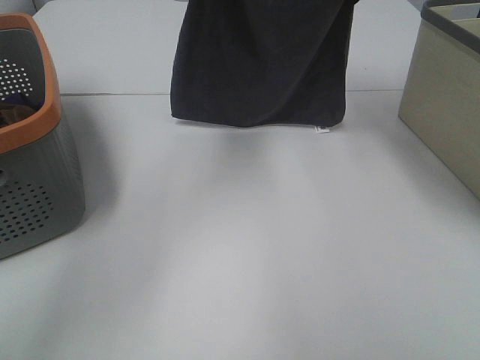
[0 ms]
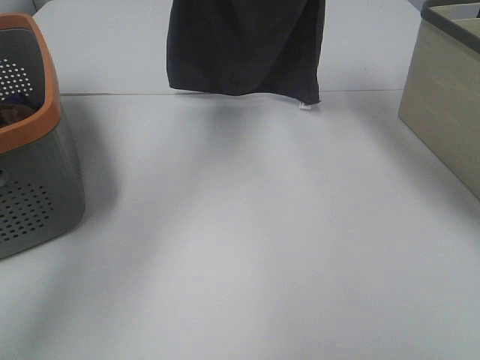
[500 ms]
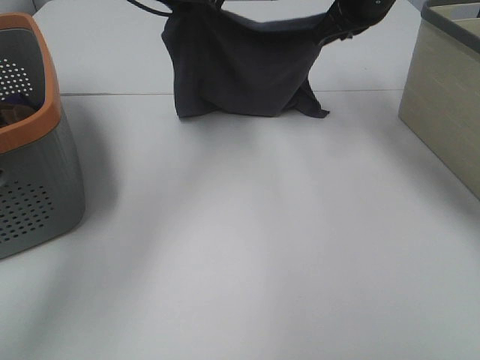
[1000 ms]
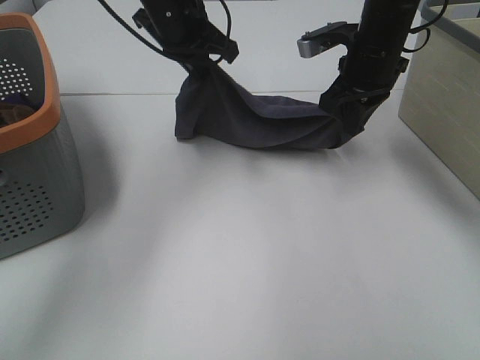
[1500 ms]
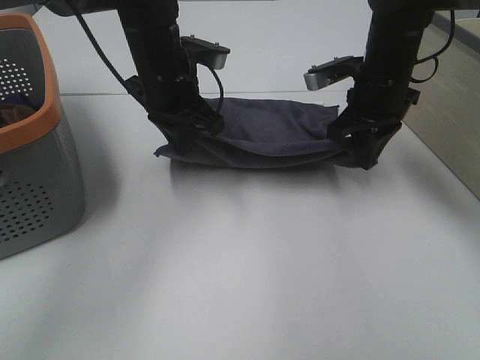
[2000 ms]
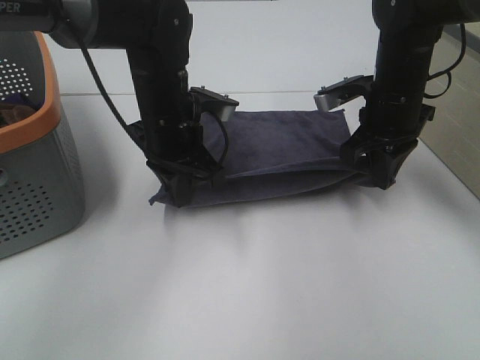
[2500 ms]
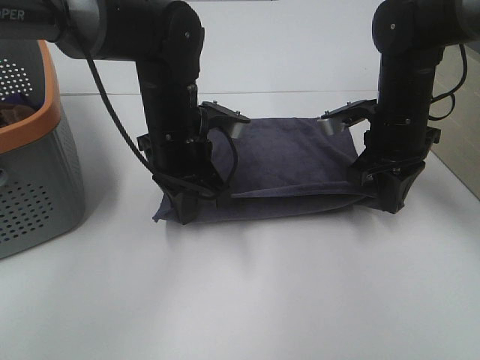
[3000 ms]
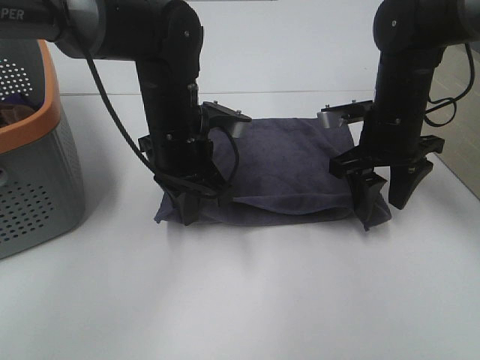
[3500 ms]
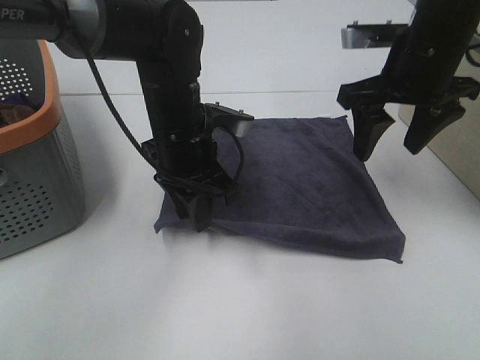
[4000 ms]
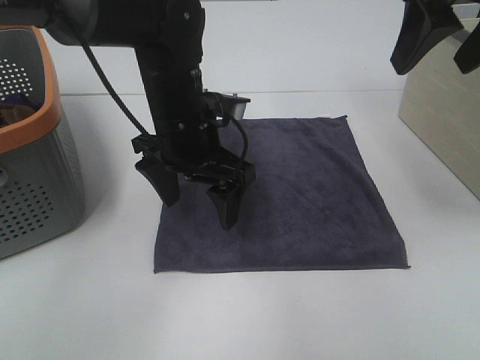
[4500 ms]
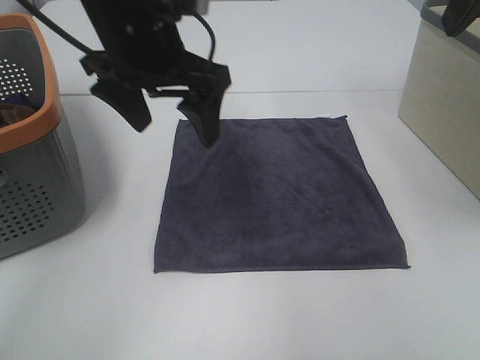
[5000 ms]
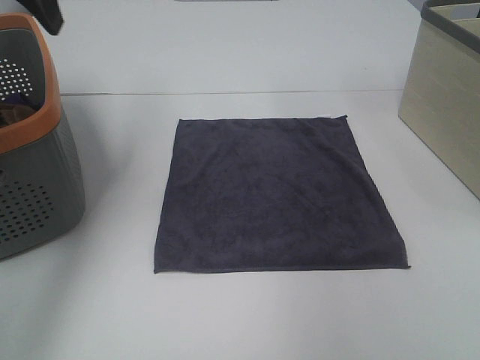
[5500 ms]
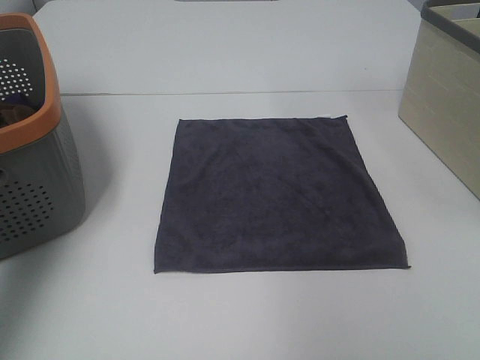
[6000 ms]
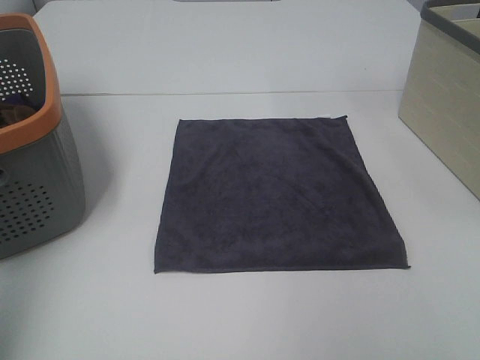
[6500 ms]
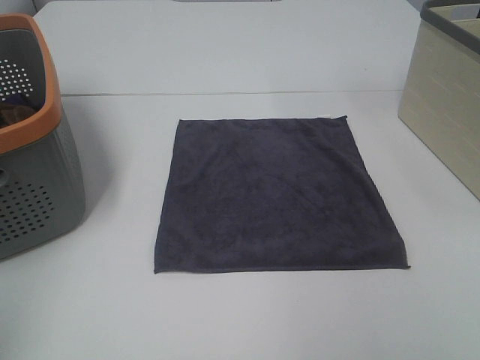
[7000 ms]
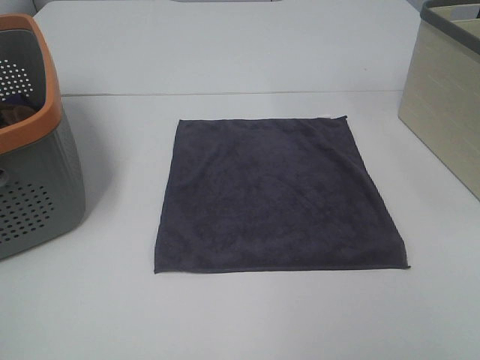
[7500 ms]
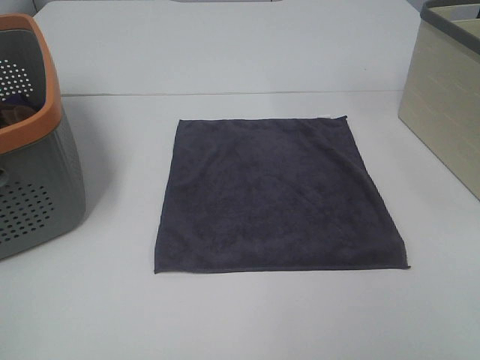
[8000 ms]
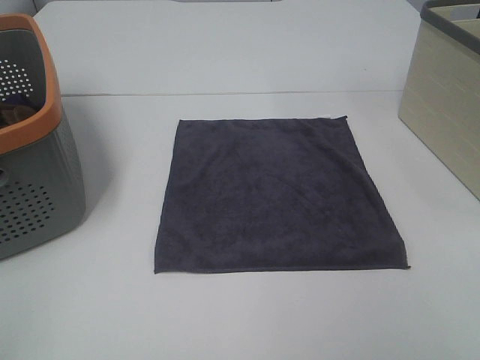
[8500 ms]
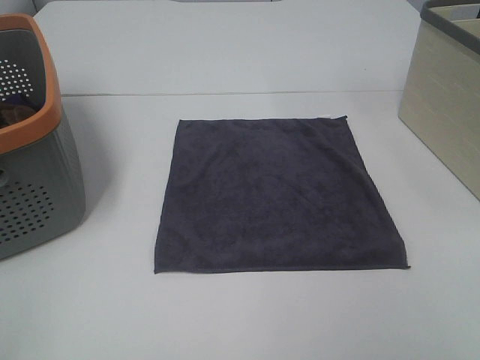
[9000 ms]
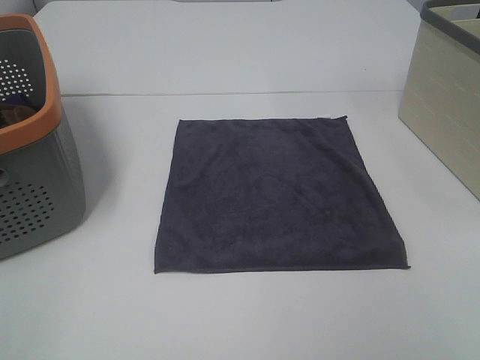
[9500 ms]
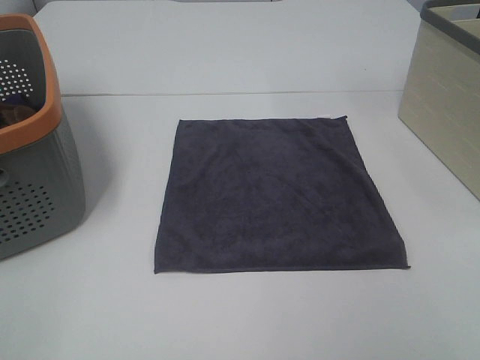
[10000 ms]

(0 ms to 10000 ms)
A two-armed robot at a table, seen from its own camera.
Task of the whole recording: Remove the towel and place it.
0 ms - 2000 ms: The left gripper moves downward and backward, about 20 cm, while the right gripper shifts some 15 cm downward.
2000 ms - 4000 ms: The right gripper travels upward and backward by some 10 cm, and opens up. Meanwhile the left gripper travels backward by approximately 5 cm.
4000 ms - 6000 ms: The right gripper is displaced upward, backward and to the right by about 25 cm, while the left gripper is displaced to the left and upward by some 35 cm, and opens.
6000 ms - 8000 ms: The left gripper heads backward, covering some 30 cm.

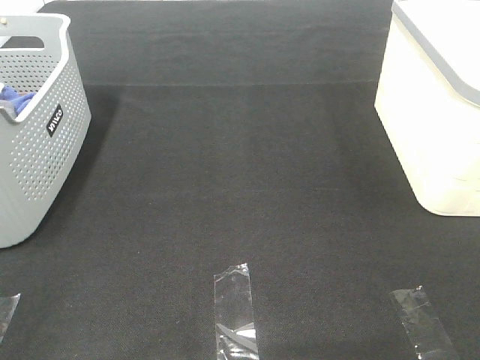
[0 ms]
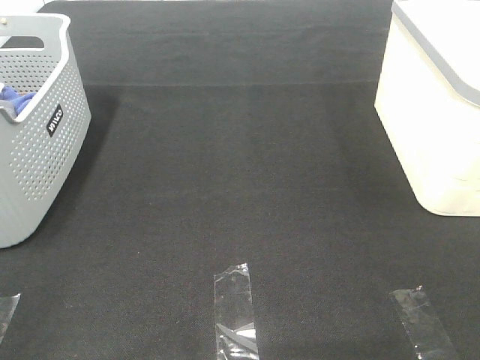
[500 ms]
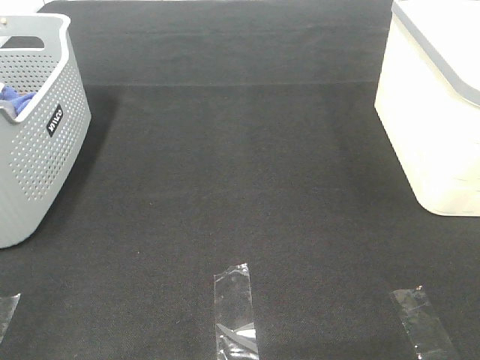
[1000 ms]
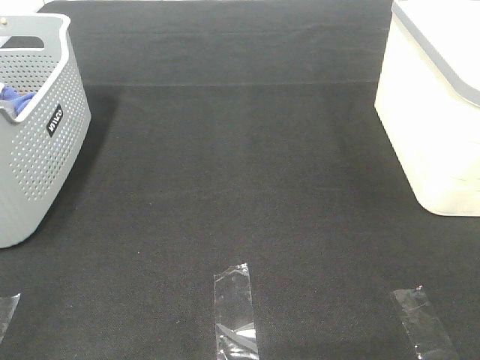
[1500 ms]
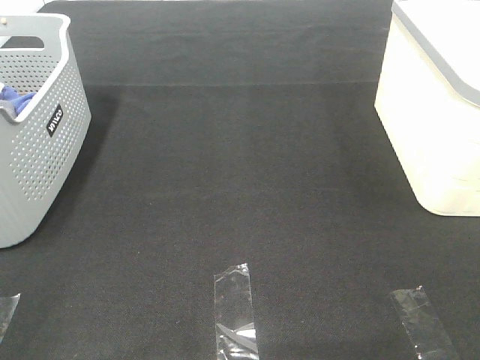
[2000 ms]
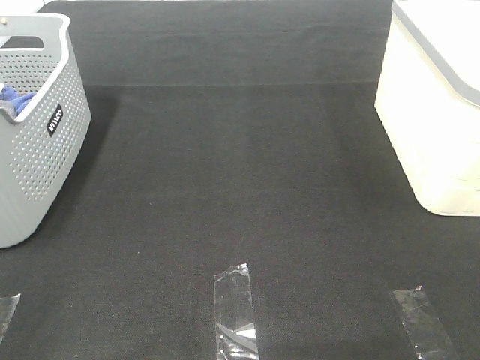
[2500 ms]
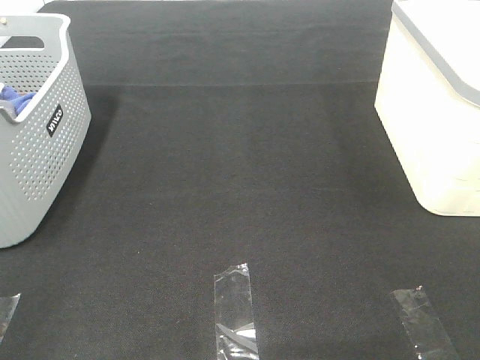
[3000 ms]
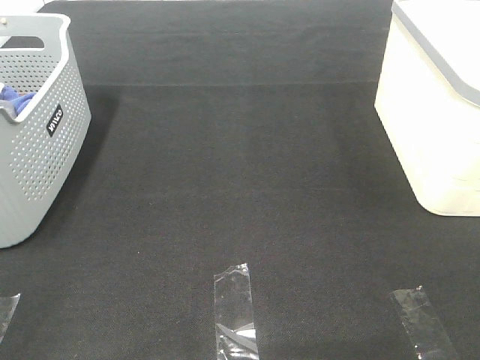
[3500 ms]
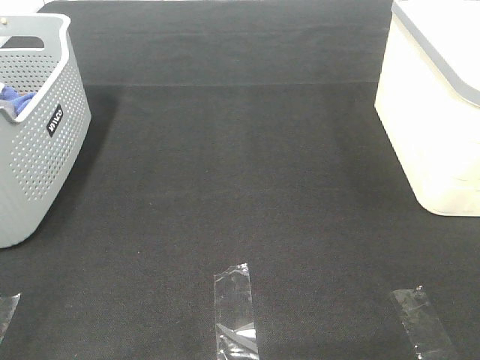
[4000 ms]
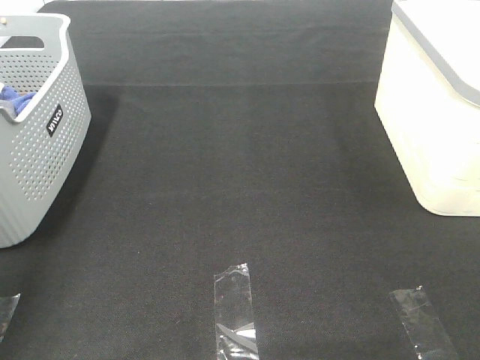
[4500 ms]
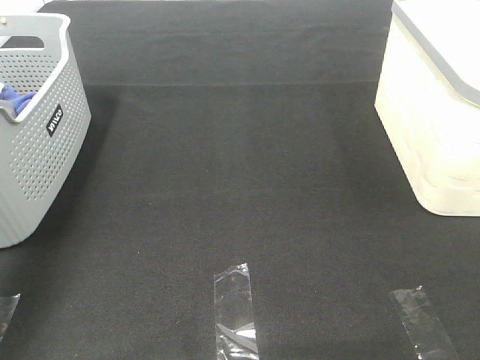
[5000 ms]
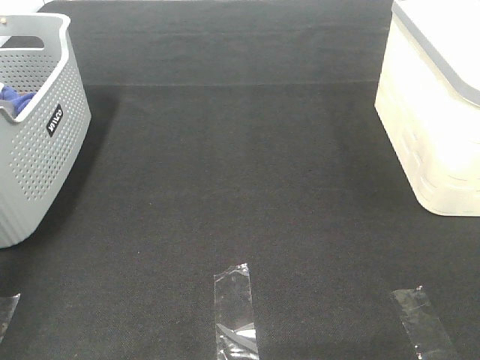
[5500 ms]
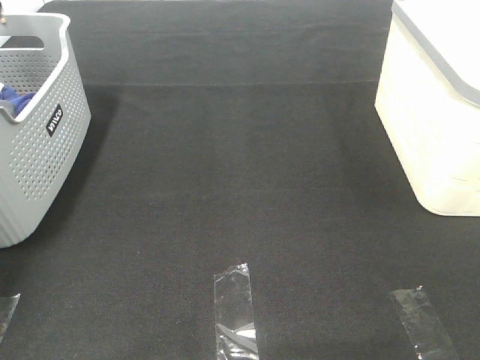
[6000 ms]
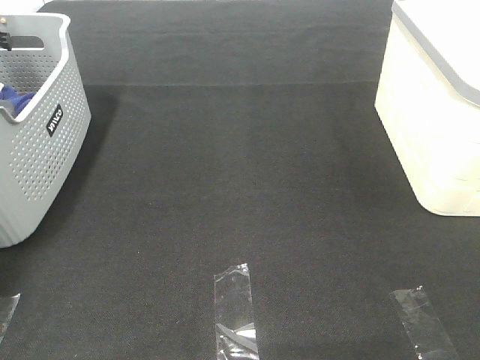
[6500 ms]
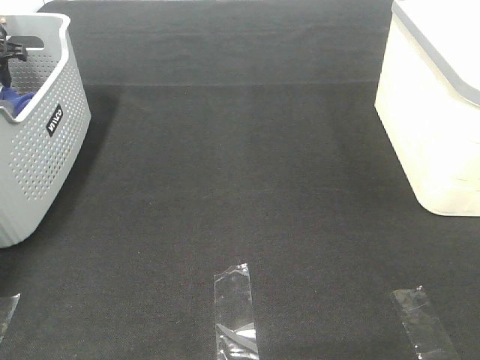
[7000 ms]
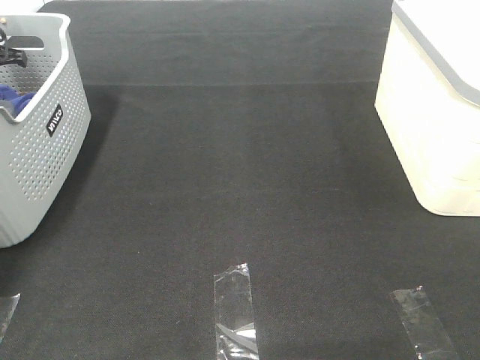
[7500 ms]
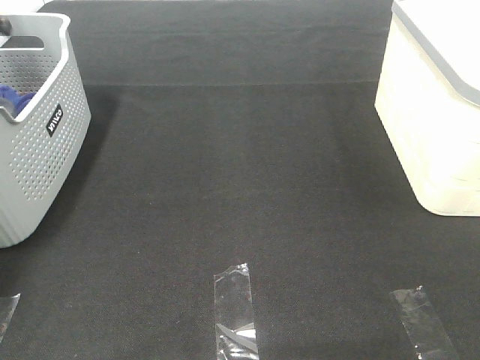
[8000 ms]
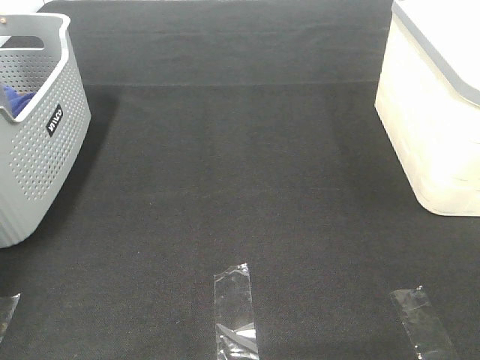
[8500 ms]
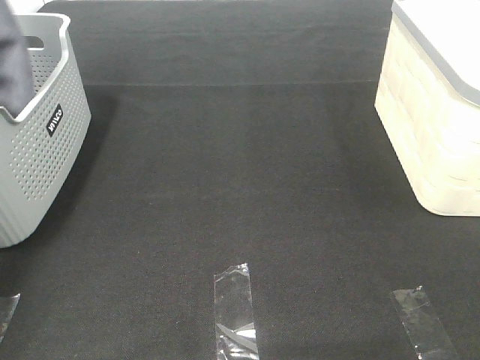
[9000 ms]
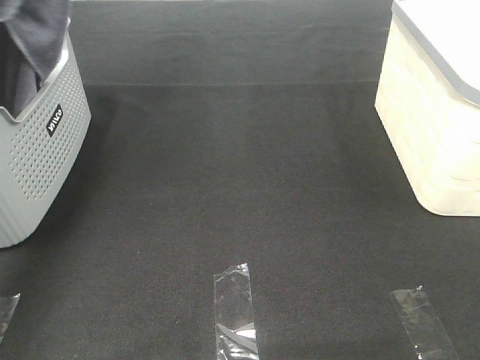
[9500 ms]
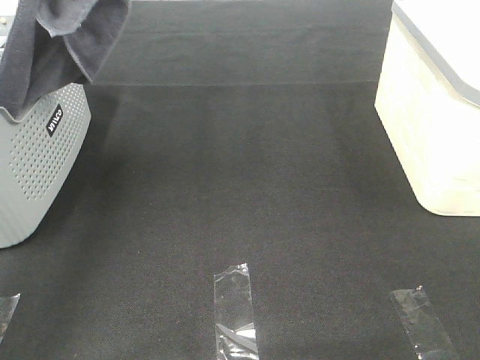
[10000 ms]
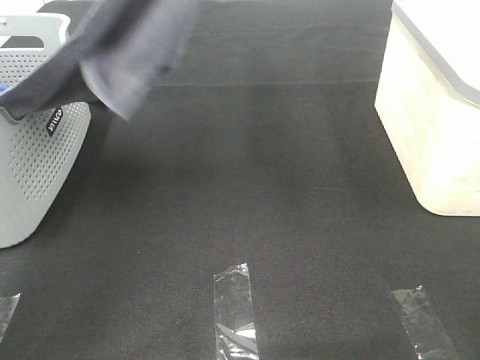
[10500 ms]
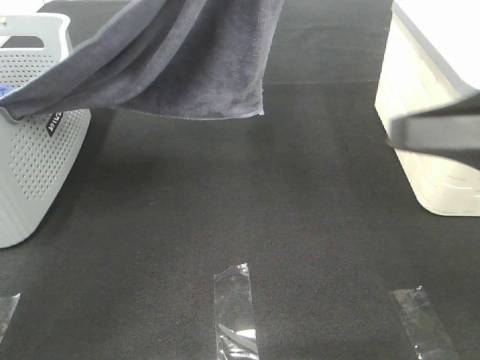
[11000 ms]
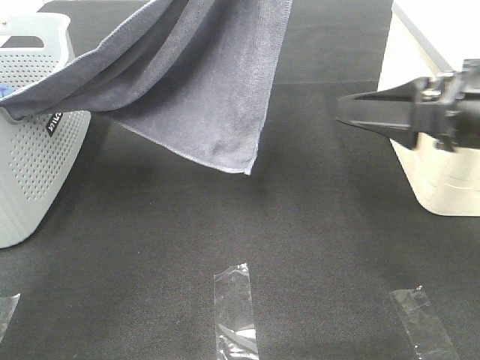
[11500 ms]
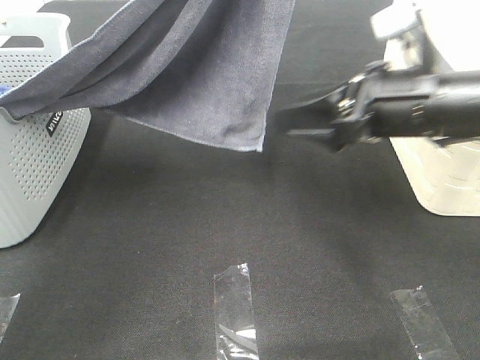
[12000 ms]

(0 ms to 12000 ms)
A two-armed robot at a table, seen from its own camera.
Task of the whole recording: Remove the towel and place it.
0 ms - 2000 ms: Both grippers stay about where they are.
4000 ms - 6000 ms: The left gripper goes roughly 50 cm forward.
8000 ms - 10000 ms: The left gripper is displaced upward, to the right and backward by about 40 cm.
10000 ms - 12000 ms: The right gripper travels forward and to the left by roughly 30 cm. The left gripper is displaced to the right and downward by roughly 15 cm.

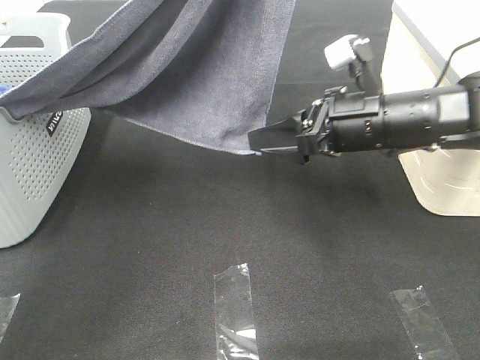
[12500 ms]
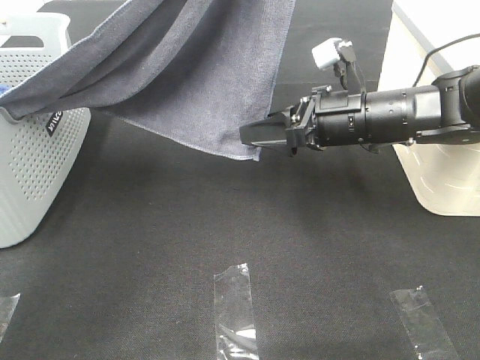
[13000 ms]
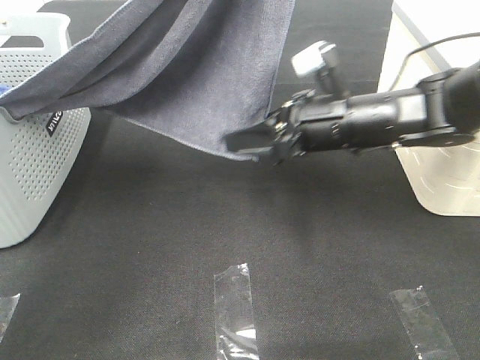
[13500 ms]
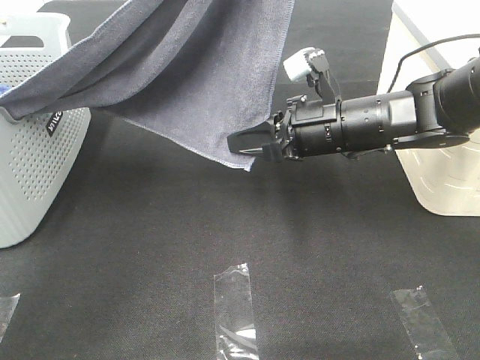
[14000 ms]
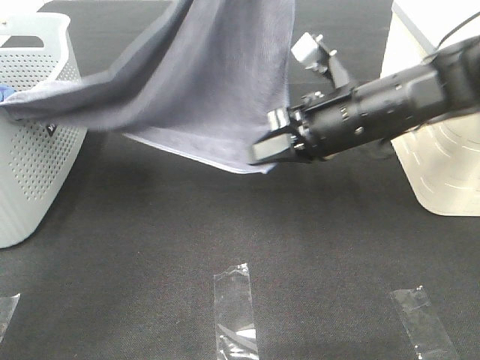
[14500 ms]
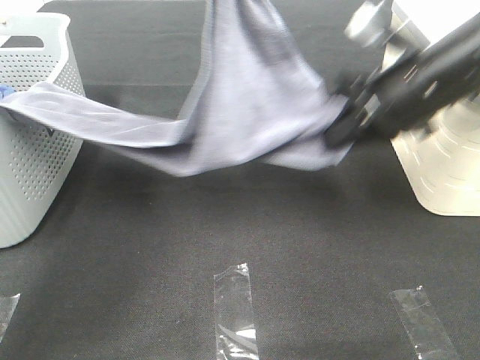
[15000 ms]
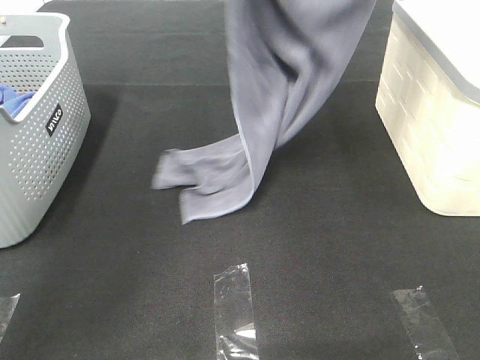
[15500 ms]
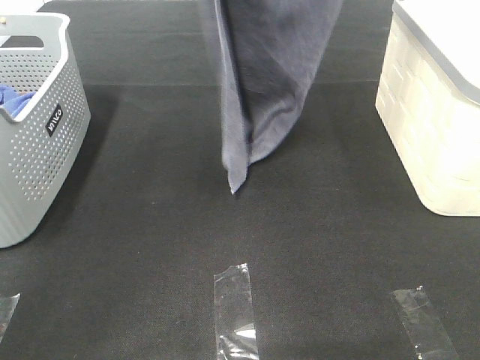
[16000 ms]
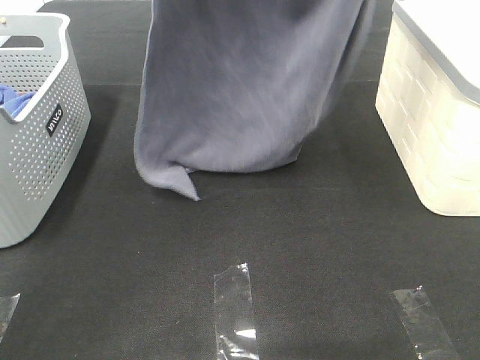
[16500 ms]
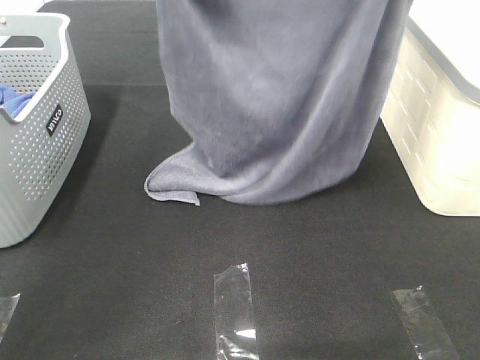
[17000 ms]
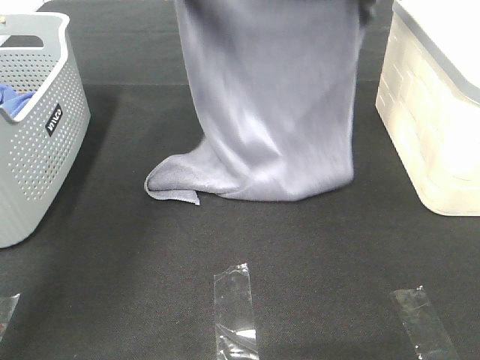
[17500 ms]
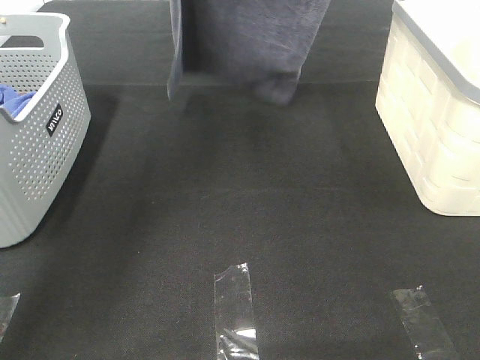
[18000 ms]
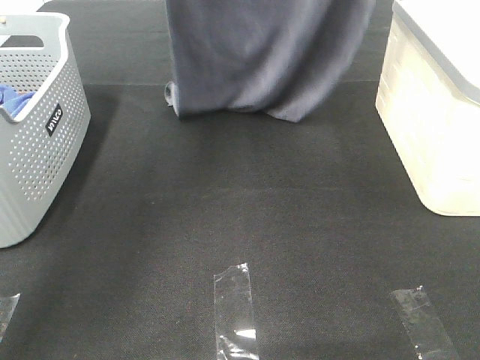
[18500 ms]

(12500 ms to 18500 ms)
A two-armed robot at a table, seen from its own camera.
Task of the whole recording: Remove the towel and place it.
Step, 14500 ms - 17000 ms: Left hand: spread the grey towel flat on the table.
Step, 14500 ms - 17000 ms: Right hand: spread the grey towel flat on the table.
12500 ms - 14500 ms: The right gripper closes up.
14500 ms - 16500 ms: The left gripper goes up and down, approximately 15 cm each way, reversing 2 times. The right gripper heads upward, covering some 30 cm.
16500 ms - 18500 ms: The left gripper goes up and down, about 15 cm each way, reversing 2 times. The right gripper goes up and down, about 20 cm each way, reversing 2 times.
